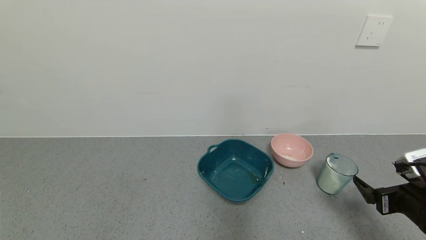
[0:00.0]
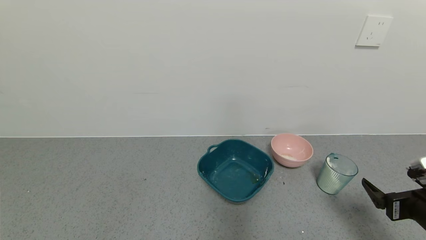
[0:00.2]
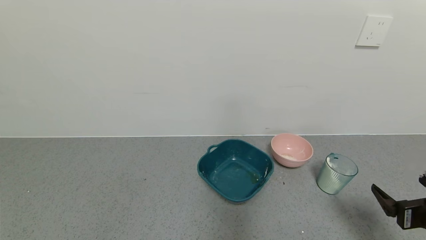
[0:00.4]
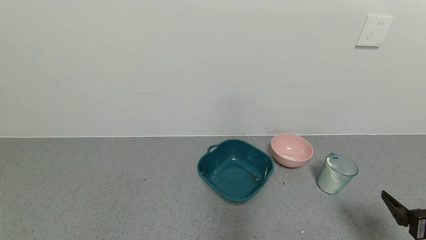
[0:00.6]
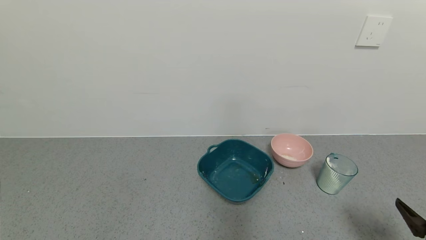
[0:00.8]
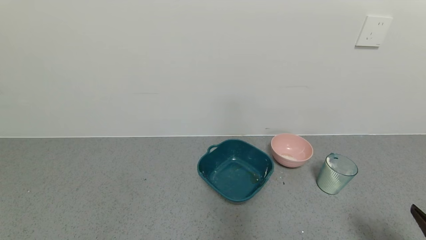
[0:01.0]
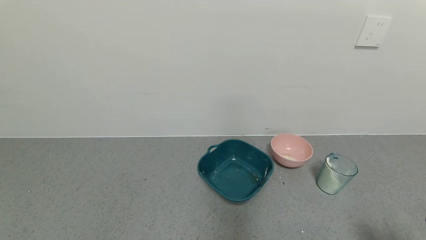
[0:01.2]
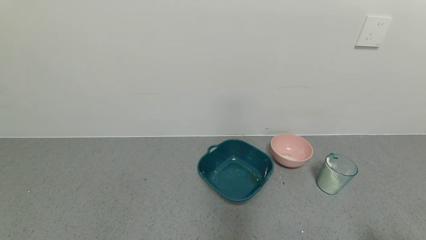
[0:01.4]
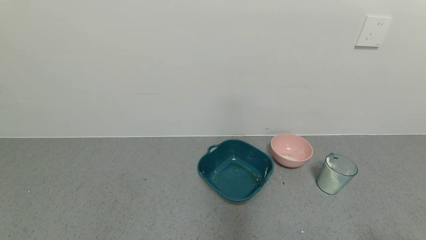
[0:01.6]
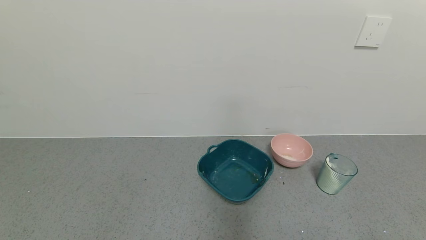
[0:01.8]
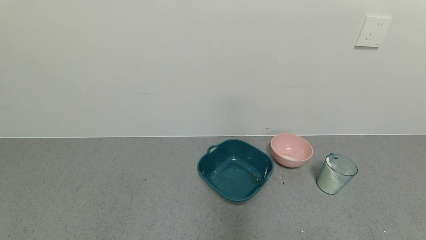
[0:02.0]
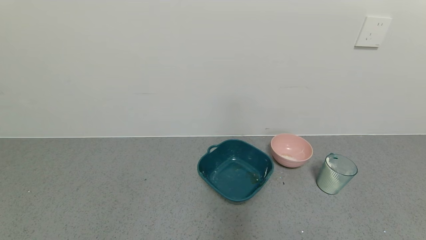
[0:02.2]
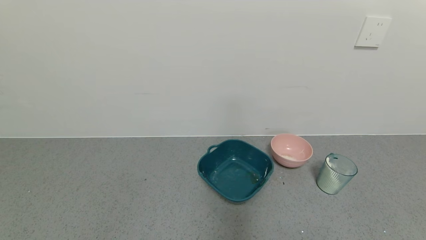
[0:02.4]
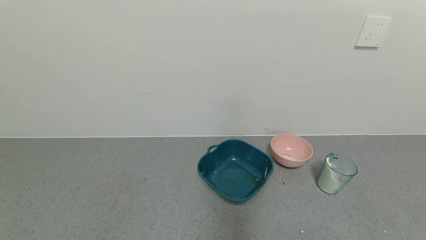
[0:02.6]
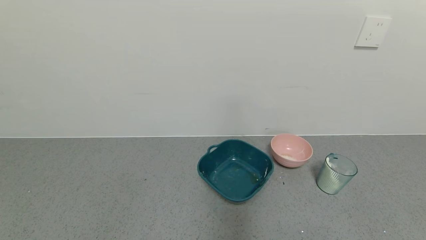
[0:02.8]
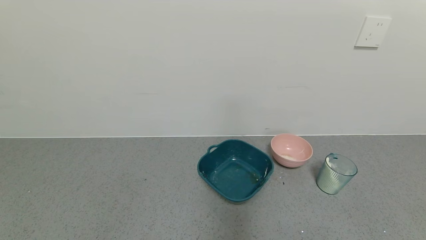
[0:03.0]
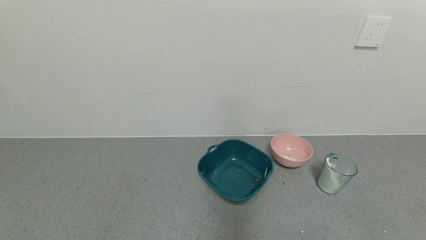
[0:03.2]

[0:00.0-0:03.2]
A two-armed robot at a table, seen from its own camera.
Task of the whole recording: use a gripper to pick up the cup and pour the powder into a bowl or tray.
0:00.0 to 0:01.6: The right gripper travels backward by some 15 cm.
